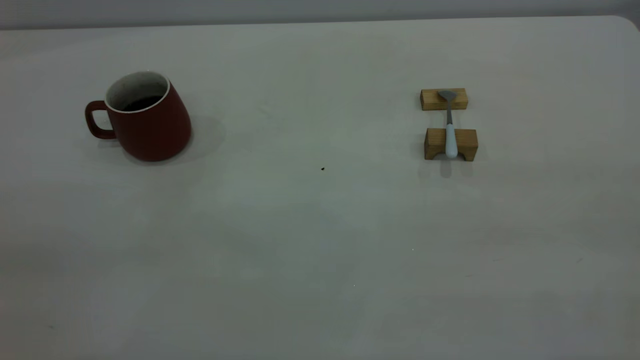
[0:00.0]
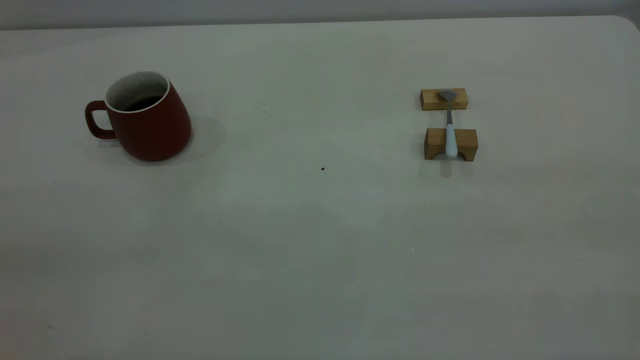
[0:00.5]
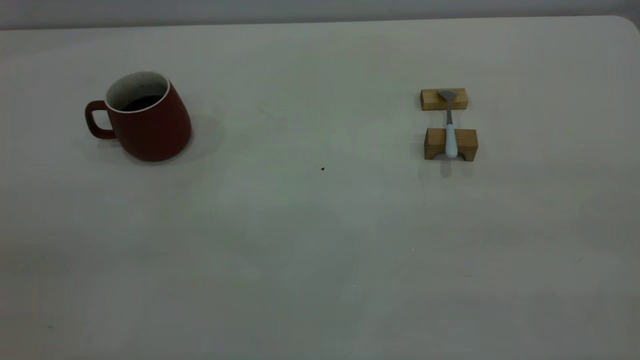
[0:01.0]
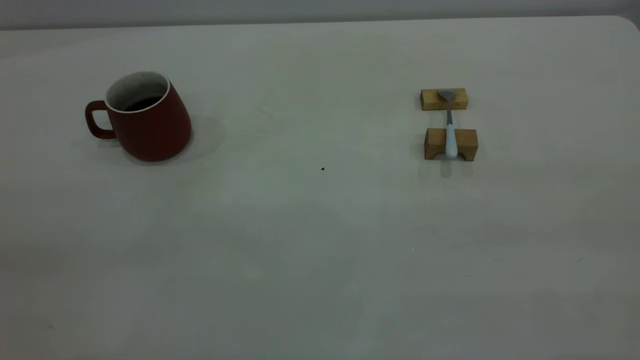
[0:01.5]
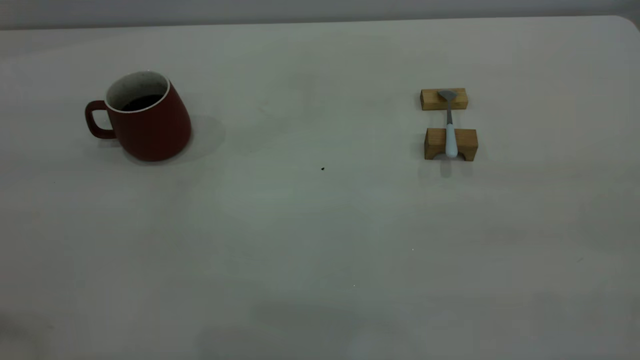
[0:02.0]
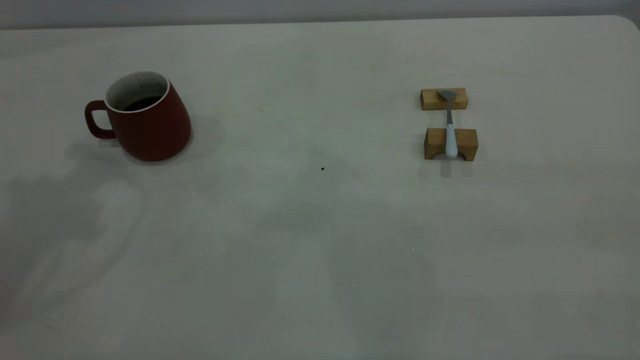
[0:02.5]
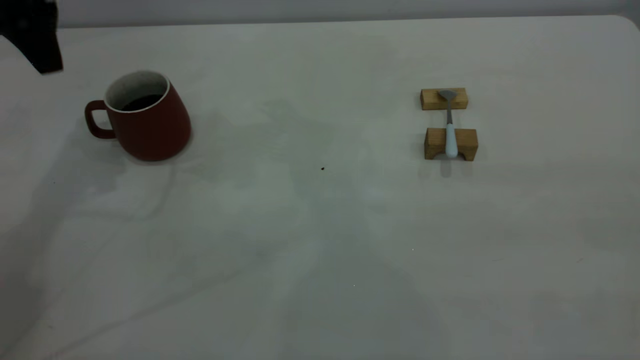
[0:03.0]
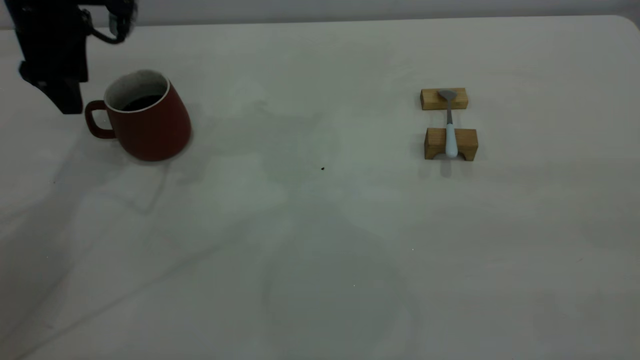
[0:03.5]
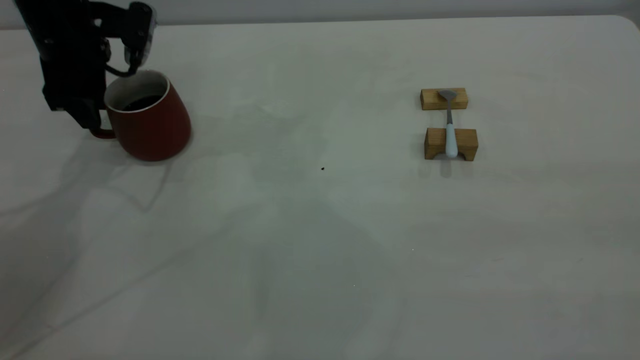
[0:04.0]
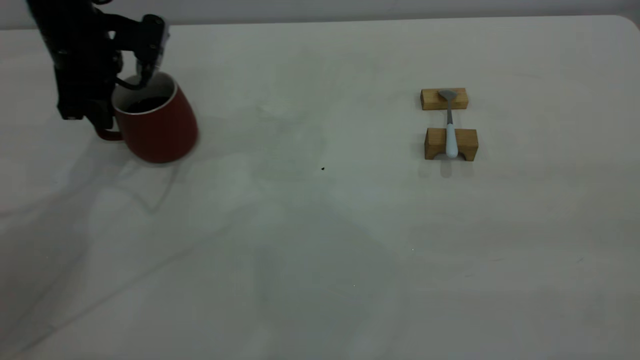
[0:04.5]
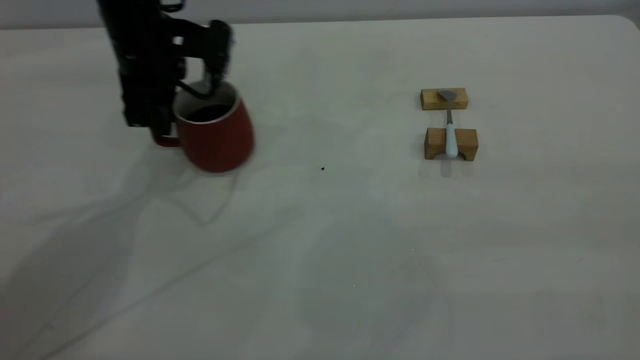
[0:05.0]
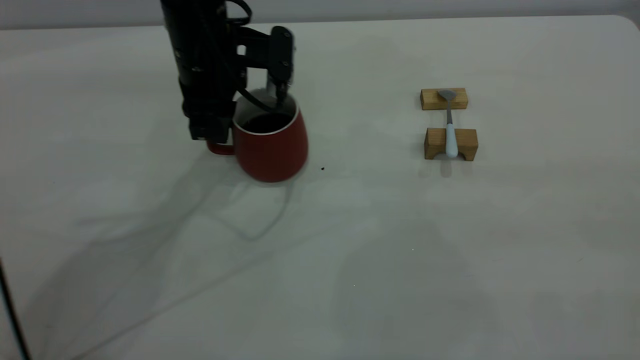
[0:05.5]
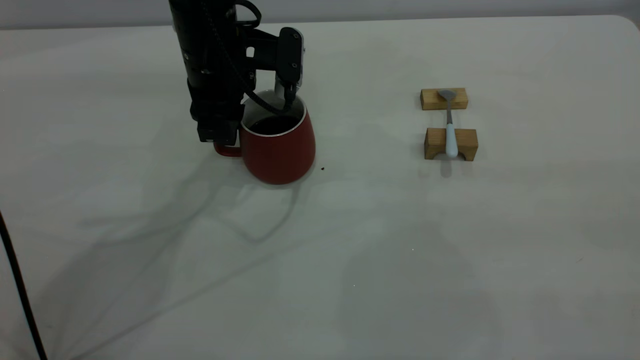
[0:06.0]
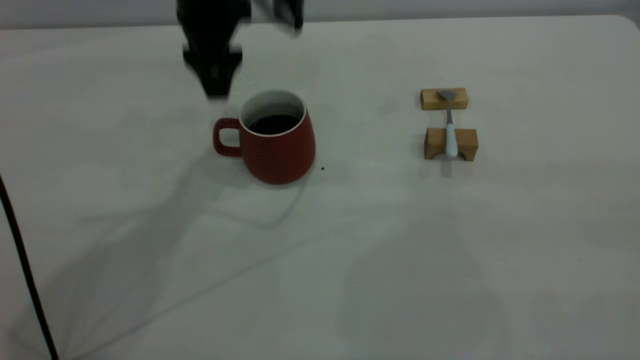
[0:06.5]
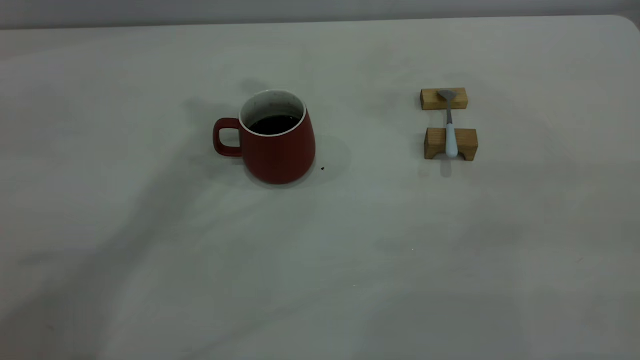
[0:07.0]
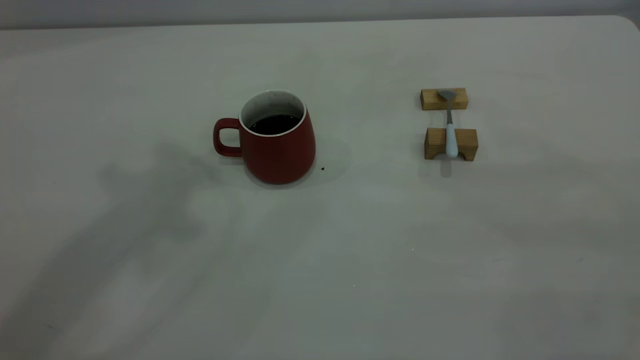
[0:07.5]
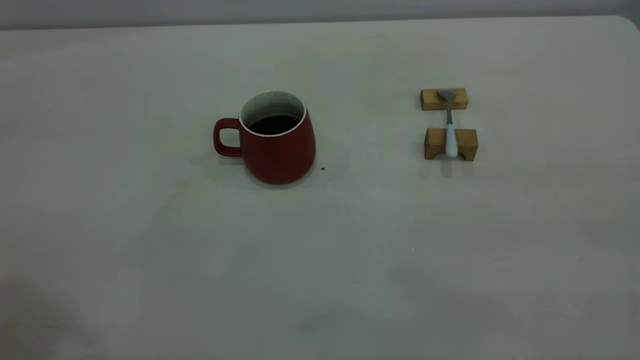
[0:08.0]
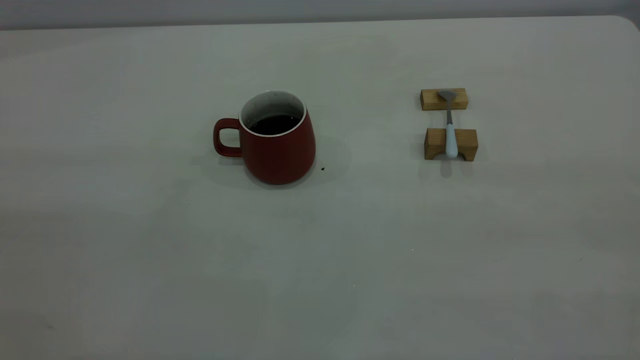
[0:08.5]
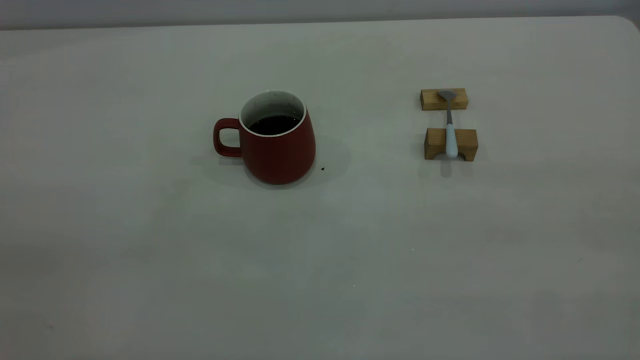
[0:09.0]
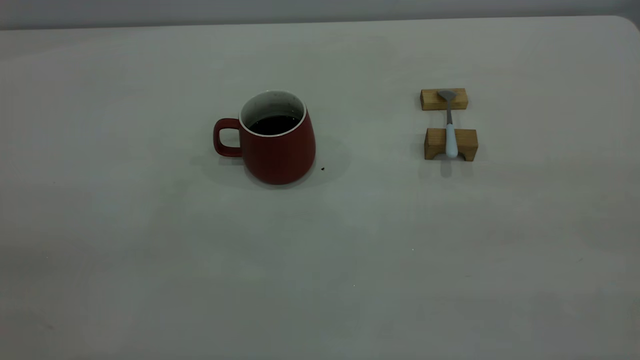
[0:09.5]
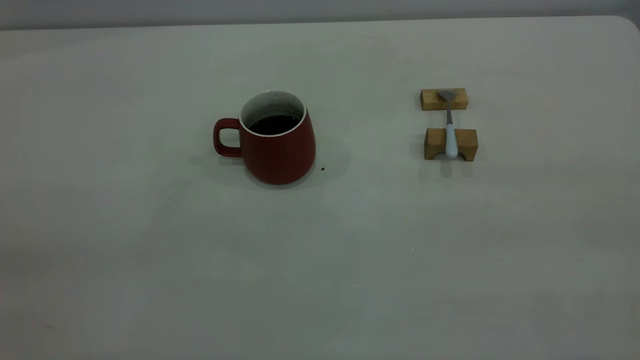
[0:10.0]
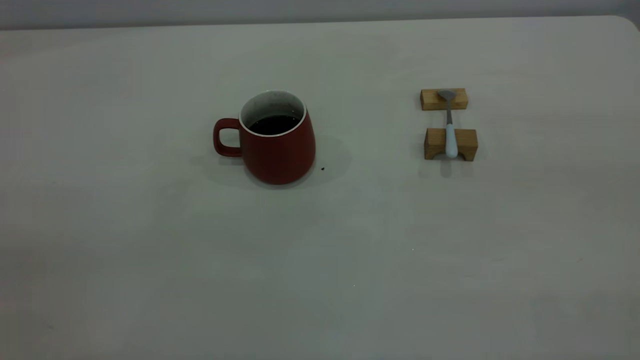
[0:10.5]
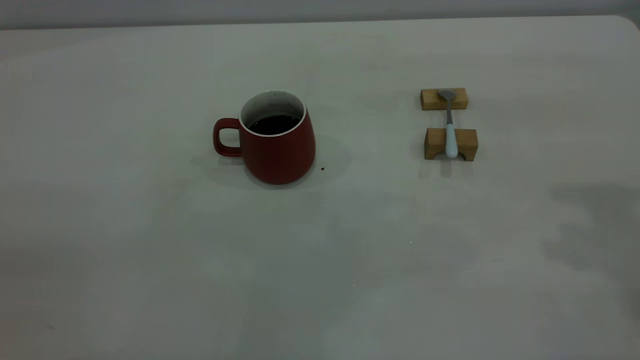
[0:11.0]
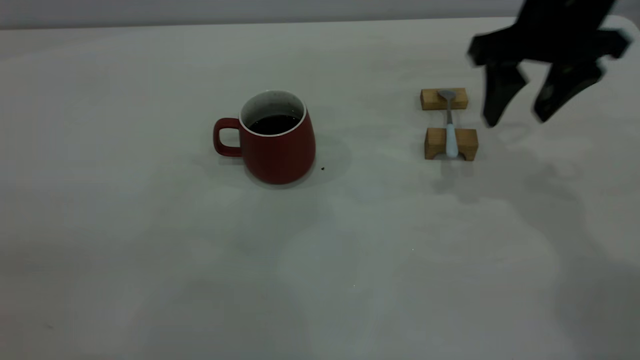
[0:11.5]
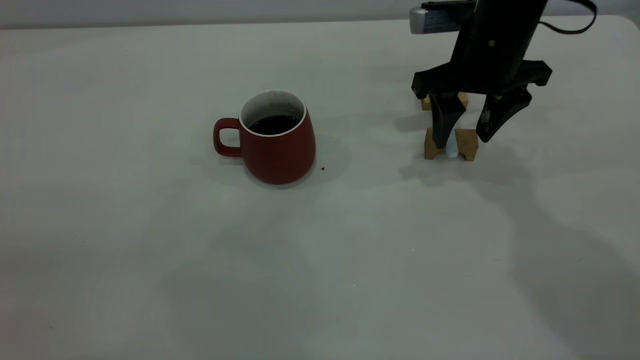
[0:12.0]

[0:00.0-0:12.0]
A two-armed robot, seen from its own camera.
Step, 0:00.0 to 0:06.0: Move the cup with coffee to the center of view.
0:02.0 to 0:04.0: The left gripper is displaced forward and downward by some 40 cm, and opens.
0:04.0 to 0:06.0: The left gripper heads to the right, covering approximately 15 cm.
0:06.0 to 0:08.0: The left gripper is displaced upward, backward and to the left by approximately 50 cm, and opens and closes again.
0:10.0 to 0:12.0: The right gripper moves forward and downward, roughly 50 cm, and opens up.

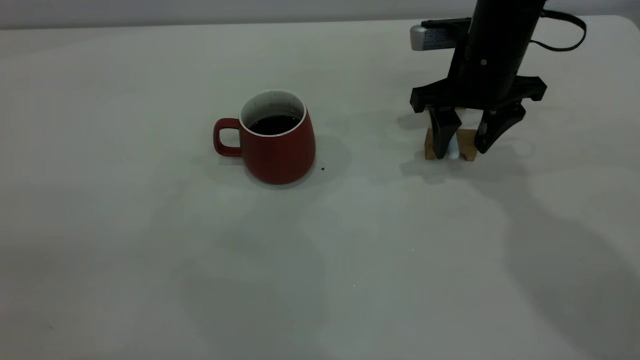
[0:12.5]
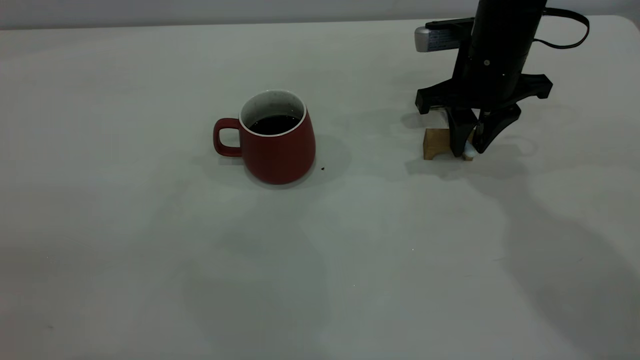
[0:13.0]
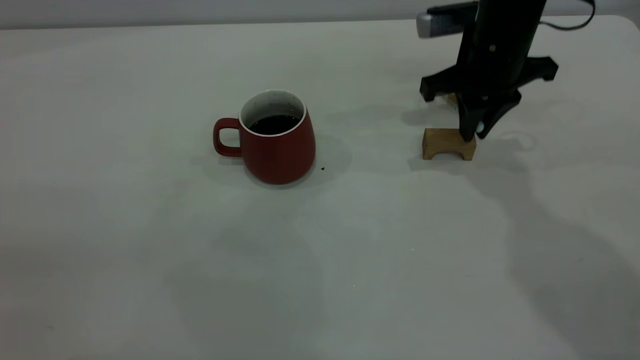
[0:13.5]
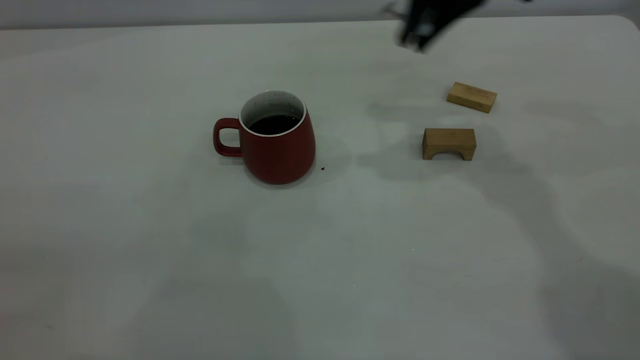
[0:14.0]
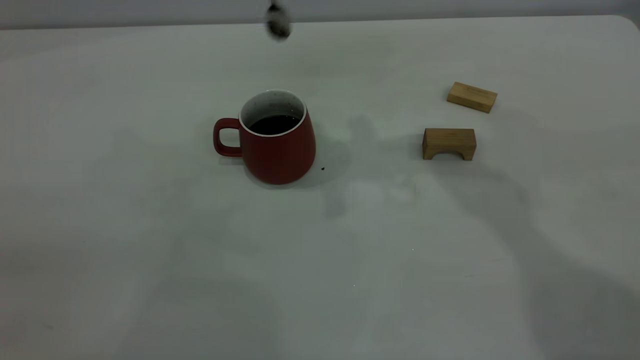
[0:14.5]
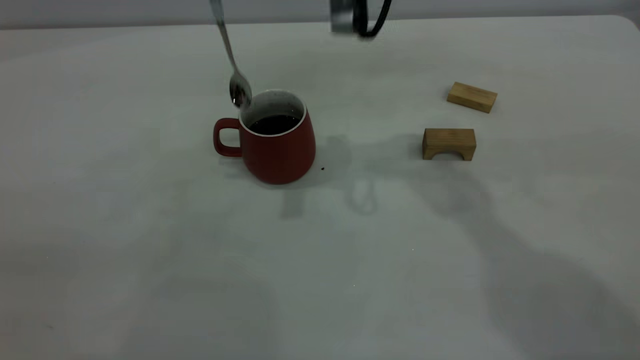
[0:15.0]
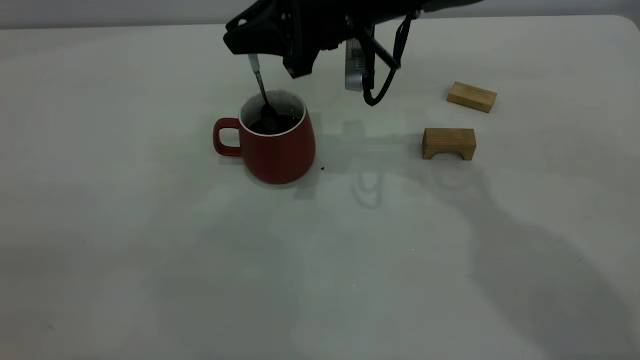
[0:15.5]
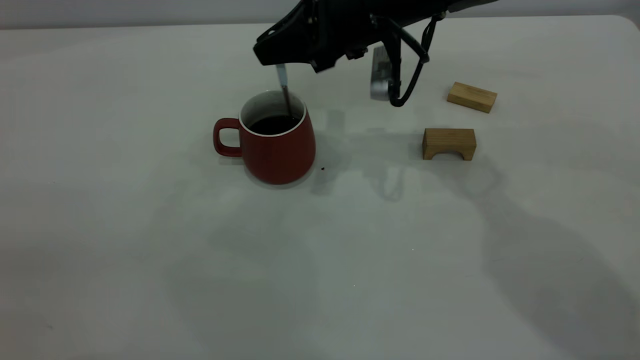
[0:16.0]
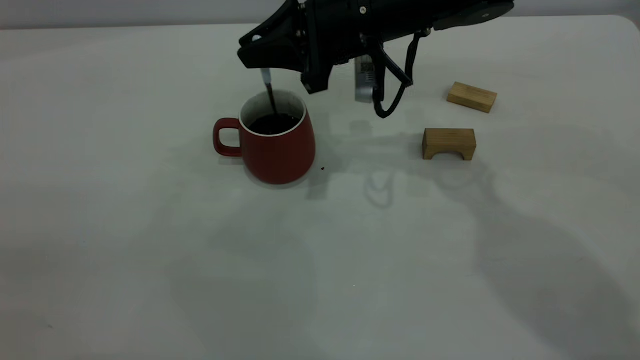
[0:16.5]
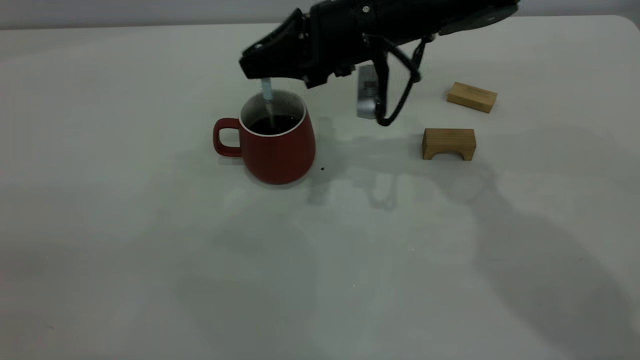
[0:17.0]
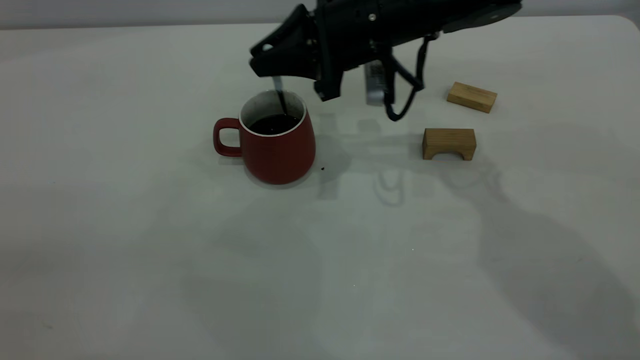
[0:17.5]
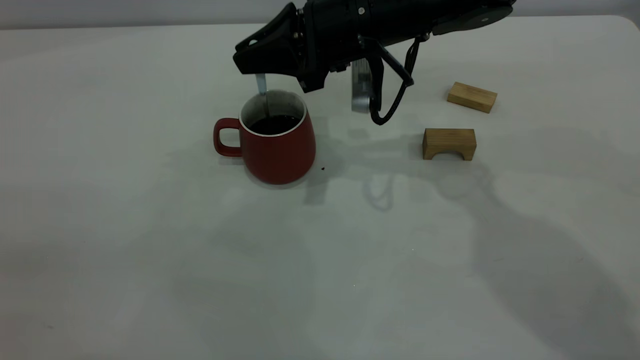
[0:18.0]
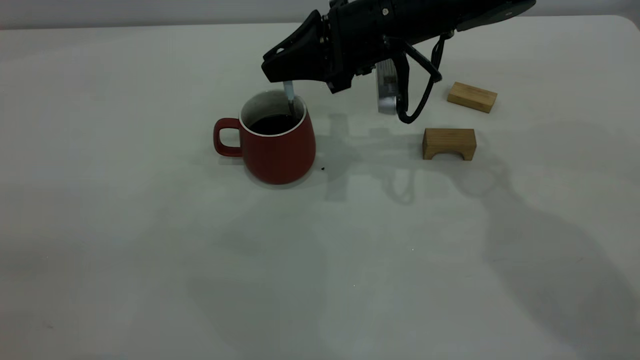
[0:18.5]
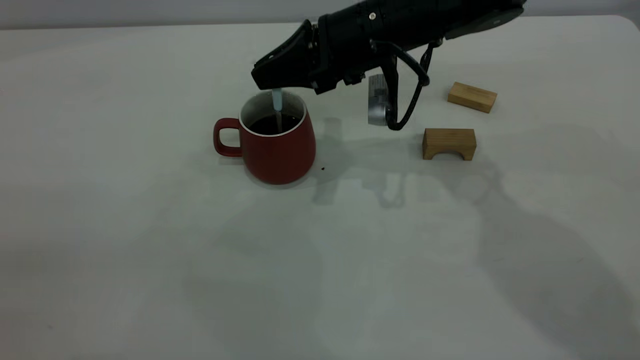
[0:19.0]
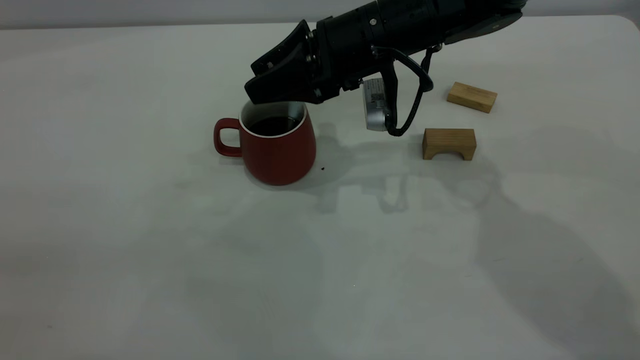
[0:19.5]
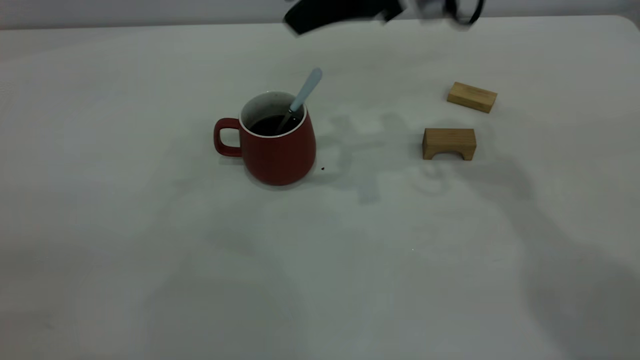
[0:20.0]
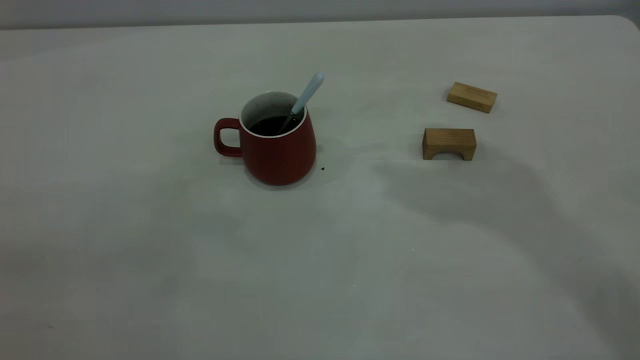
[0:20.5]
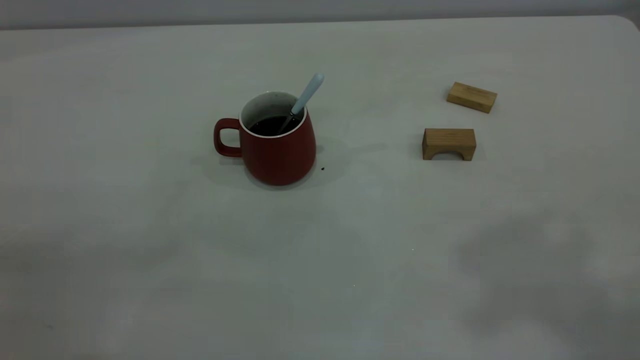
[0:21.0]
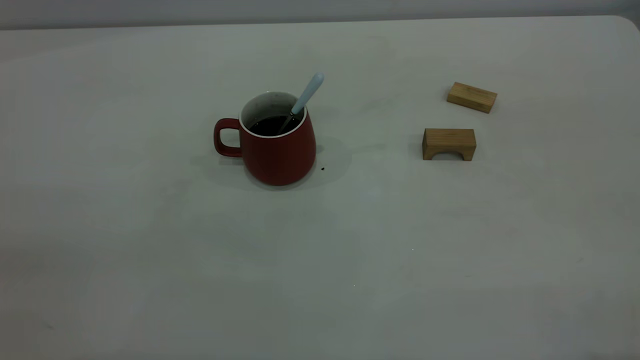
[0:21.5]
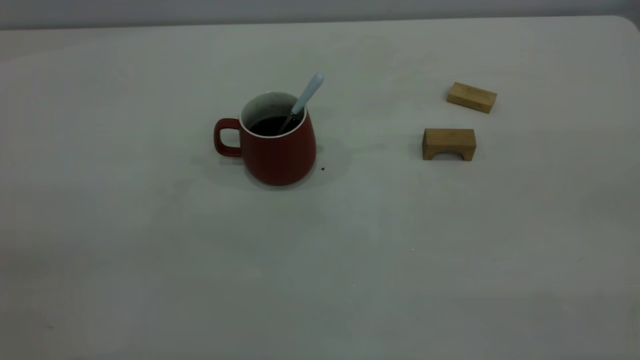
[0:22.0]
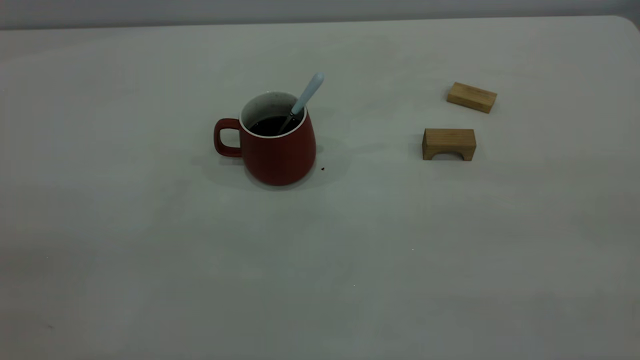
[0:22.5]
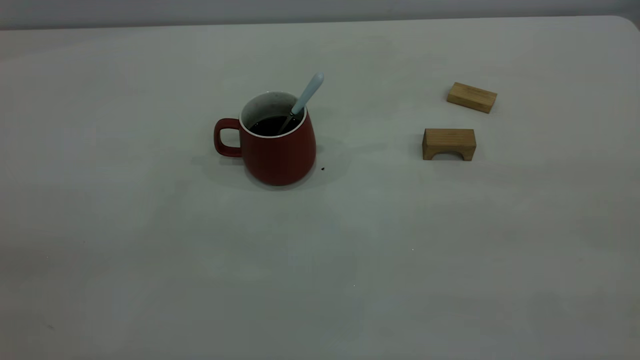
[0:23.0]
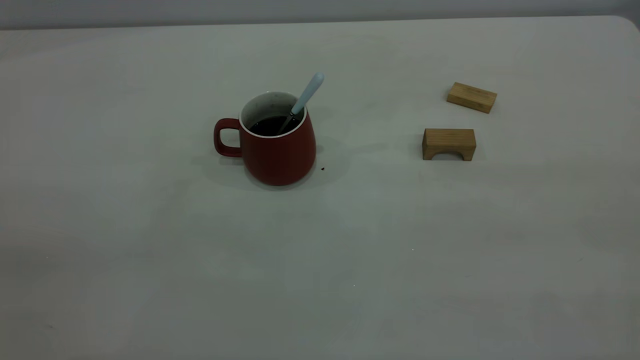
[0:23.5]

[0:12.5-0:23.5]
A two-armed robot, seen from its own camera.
Step, 0:14.0 to 0:19.5: Stir the coffee in the cup.
0:12.5 to 0:14.5: The right gripper is displaced upward and to the left by about 20 cm, and closes its fingers.
0:14.5 to 0:16.0: The right gripper moves downward, some 15 cm.
0:18.0 to 0:20.0: The right gripper heads upward, covering some 10 cm, and opens its fingers.
0:20.0 to 0:21.5: The right gripper heads backward, upward and to the right, covering some 50 cm, and closes.
